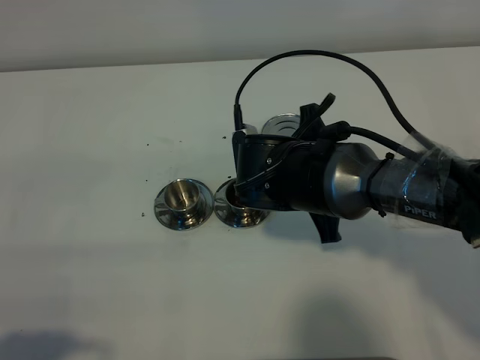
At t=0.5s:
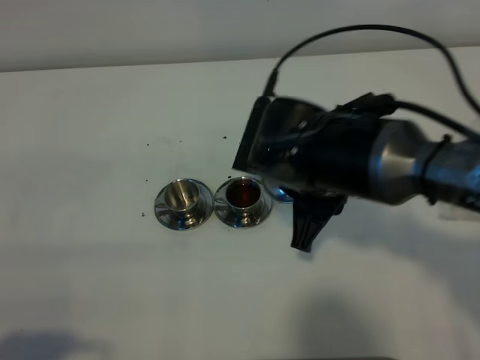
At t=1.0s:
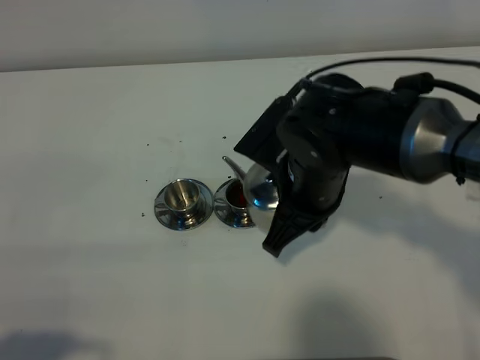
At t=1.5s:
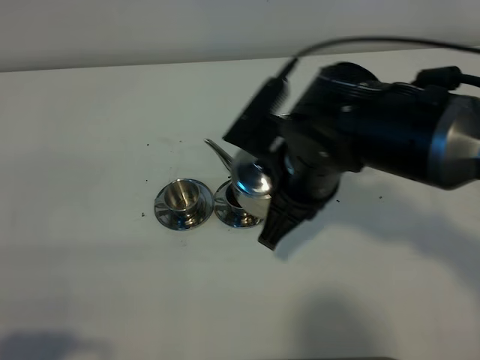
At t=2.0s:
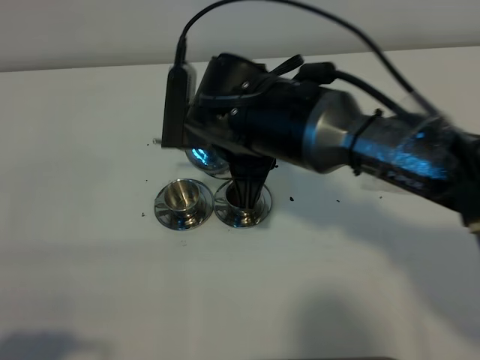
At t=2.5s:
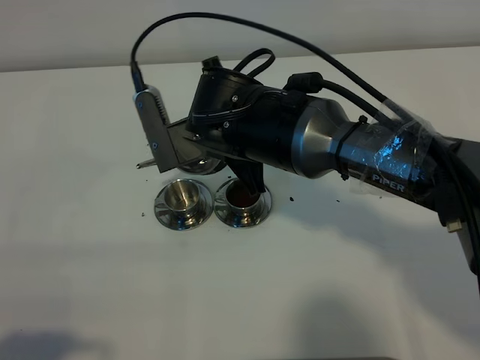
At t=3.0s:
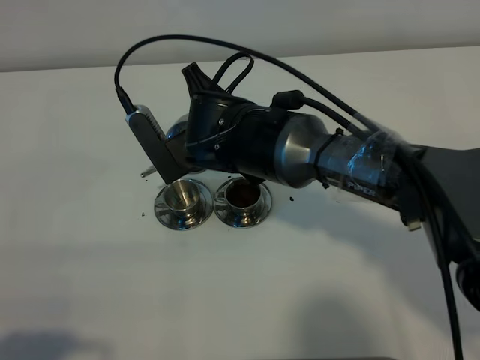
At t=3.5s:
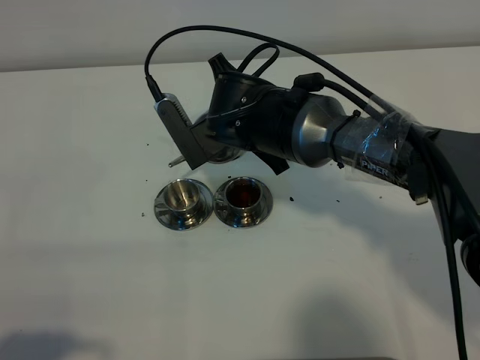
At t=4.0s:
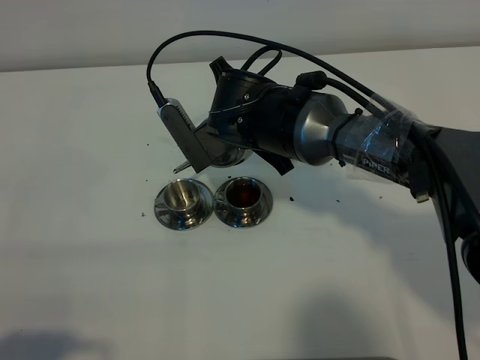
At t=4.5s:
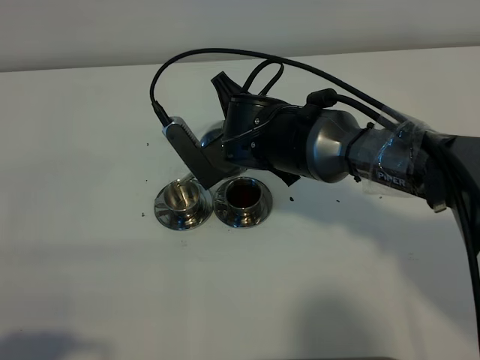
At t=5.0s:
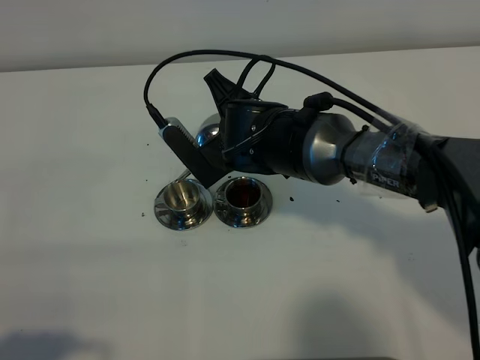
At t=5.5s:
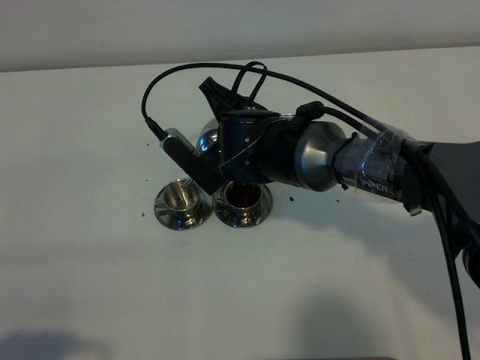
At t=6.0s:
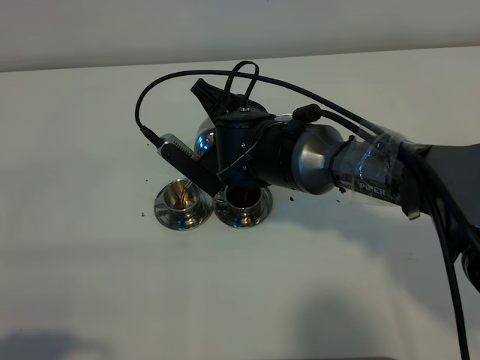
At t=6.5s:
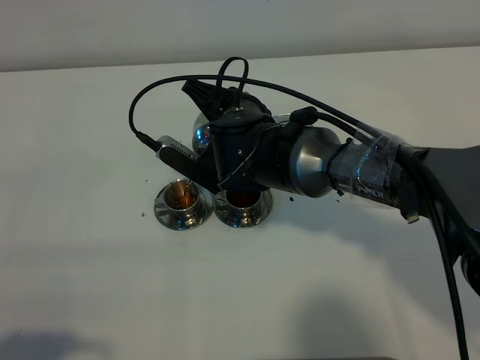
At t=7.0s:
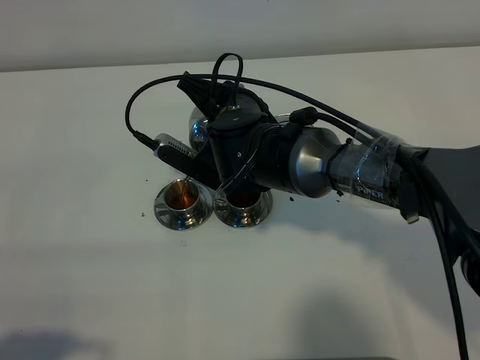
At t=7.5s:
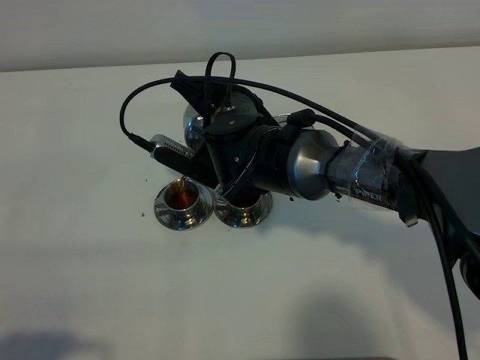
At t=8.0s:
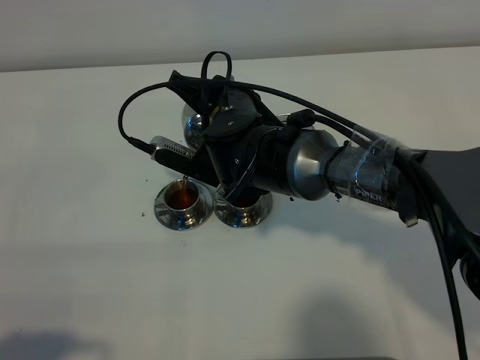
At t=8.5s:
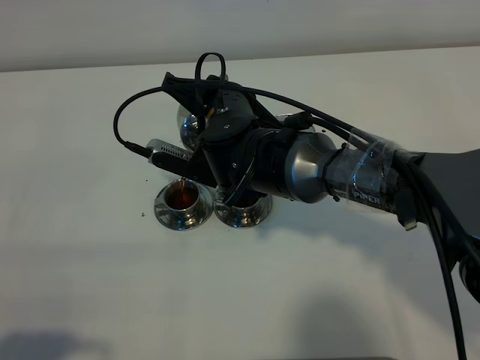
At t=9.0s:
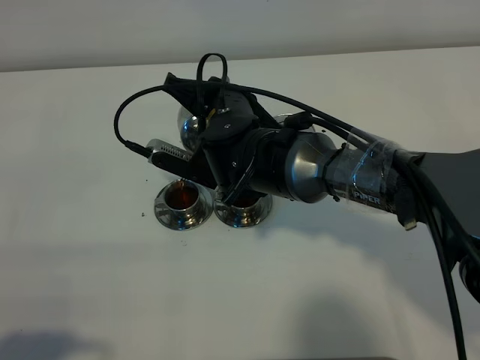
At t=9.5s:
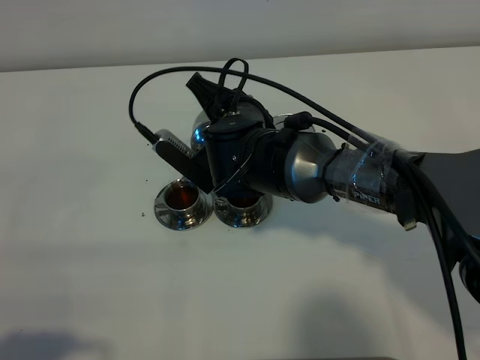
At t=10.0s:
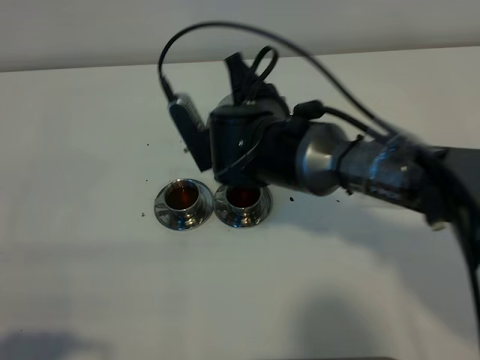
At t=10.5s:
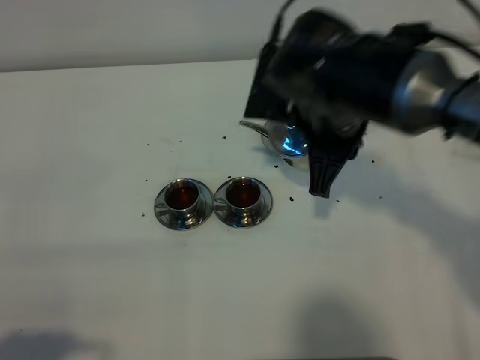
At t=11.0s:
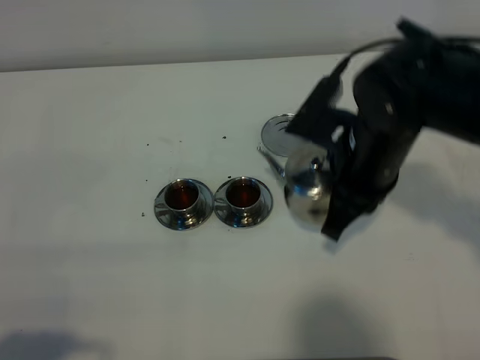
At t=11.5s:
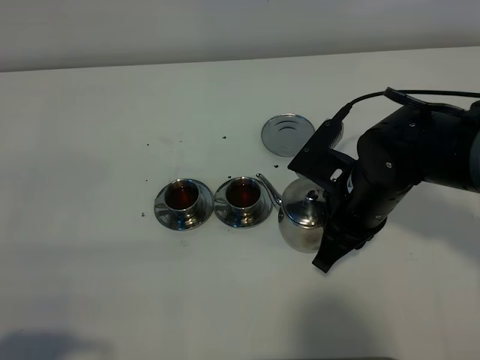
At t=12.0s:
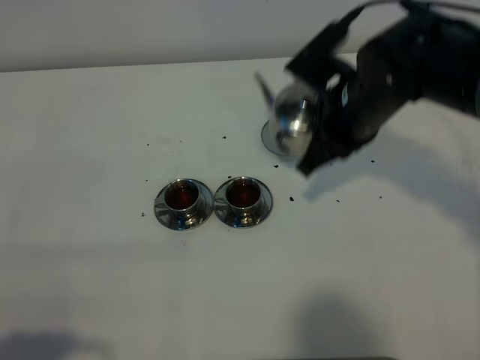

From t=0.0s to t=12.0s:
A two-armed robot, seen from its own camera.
Task of the whole recording: grasp the stainless steel teapot and pour the tea into the two stainless steel teacups one by one, put the stainless steel teapot back in its original place.
Step, from t=1.0s to t=9.5s: Pour tea into the teacup with the right gripper.
From t=0.0s to t=2.0s: The right gripper is displaced to the left and upward by some 10 cm.
From t=2.0s to t=4.0s: The right gripper shifts by some 5 cm.
From t=6.0s to t=8.0s: The grippers make only small movements.
From t=10.0s to t=12.0s: The right gripper heads to the right, covering about 10 cm.

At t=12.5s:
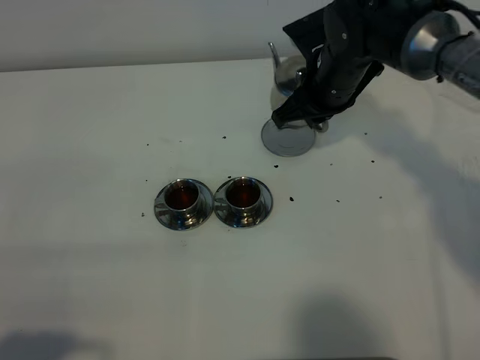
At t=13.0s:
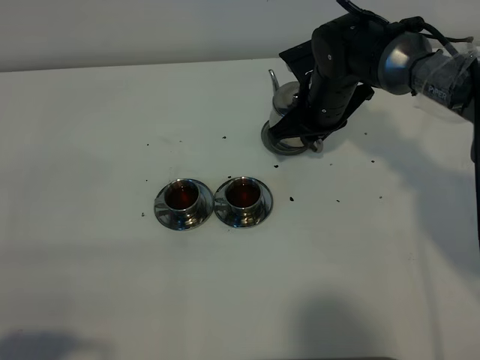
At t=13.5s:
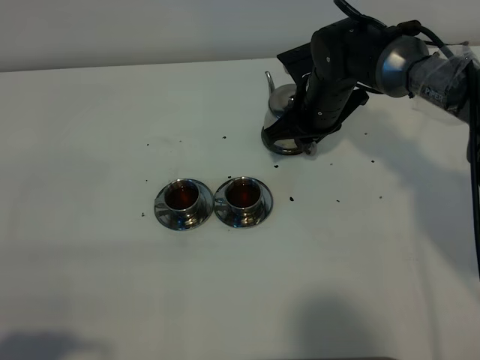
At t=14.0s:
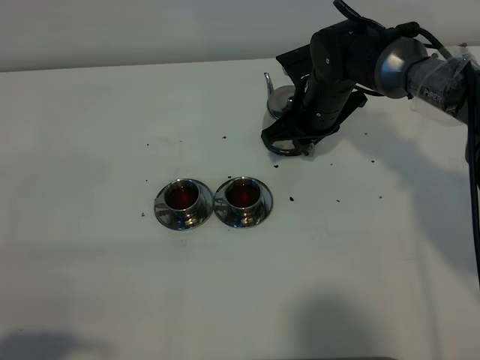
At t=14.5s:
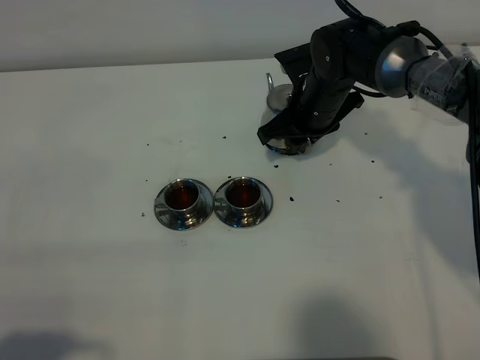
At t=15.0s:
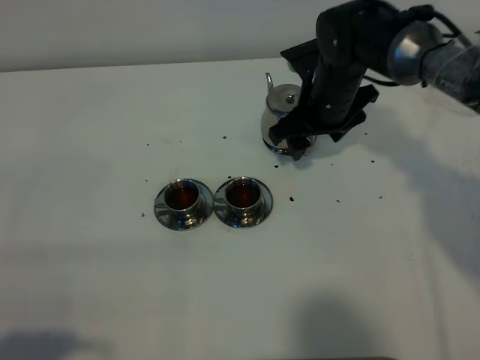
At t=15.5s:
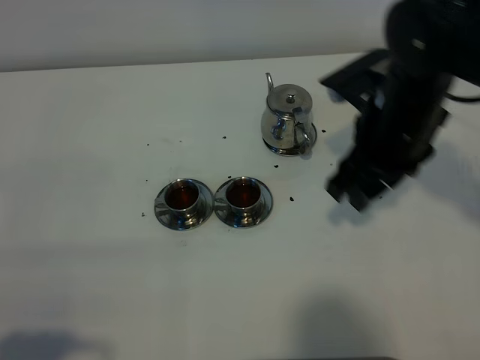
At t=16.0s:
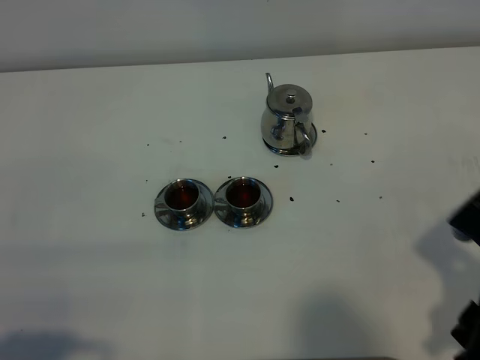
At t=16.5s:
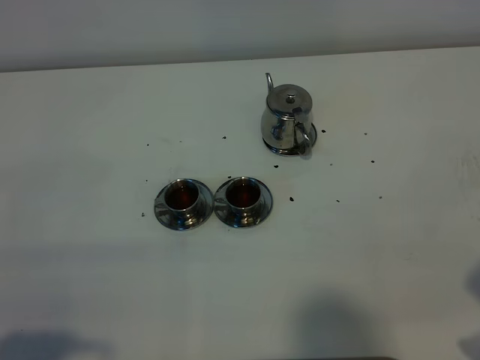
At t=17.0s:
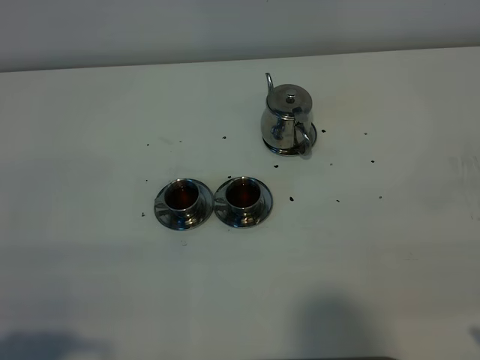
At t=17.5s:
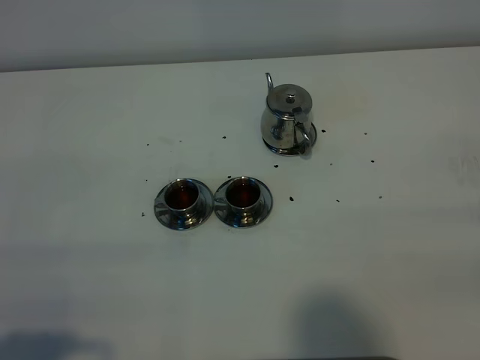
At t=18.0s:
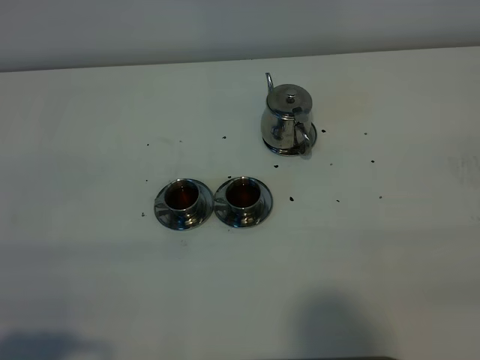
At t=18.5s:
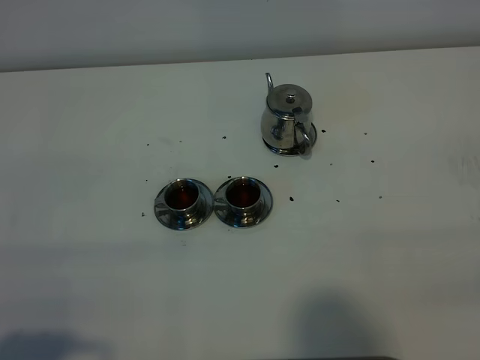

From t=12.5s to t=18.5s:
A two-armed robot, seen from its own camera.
Task of the whole recording: grasp the stainless steel teapot and pour the tea into the two stainless steel teacups one by one, put the stainless steel teapot back in its original place.
From t=12.5s to t=14.5s: The right gripper opens.
From t=14.5s to t=16.5s: The right gripper shifts about 40 cm backward and to the right, and opens up.

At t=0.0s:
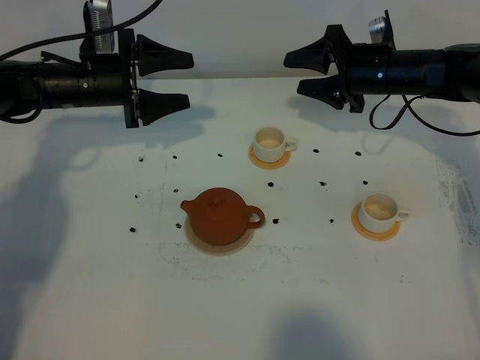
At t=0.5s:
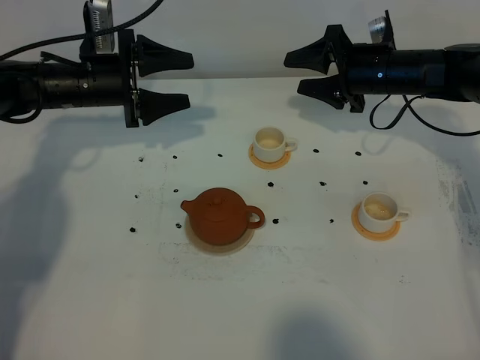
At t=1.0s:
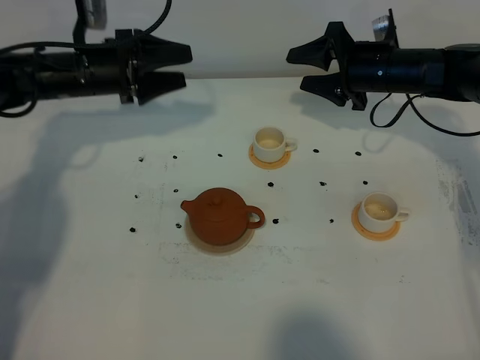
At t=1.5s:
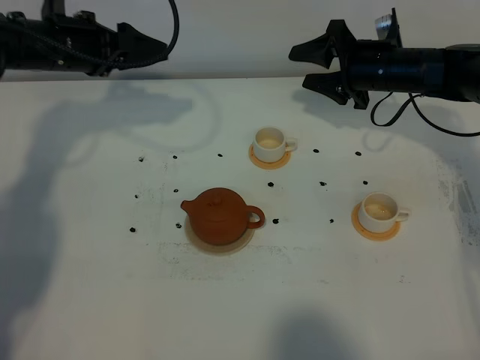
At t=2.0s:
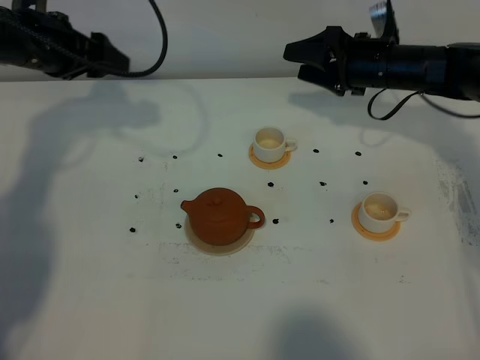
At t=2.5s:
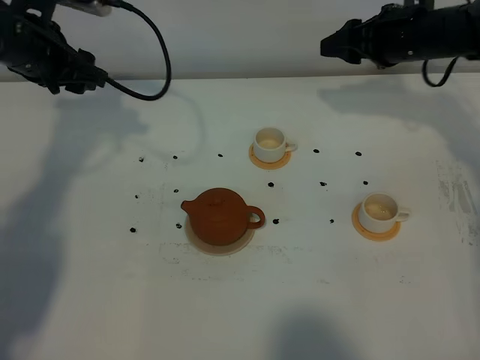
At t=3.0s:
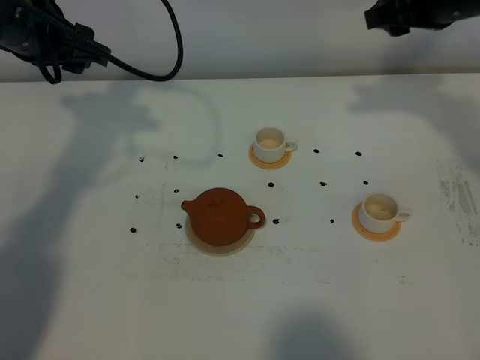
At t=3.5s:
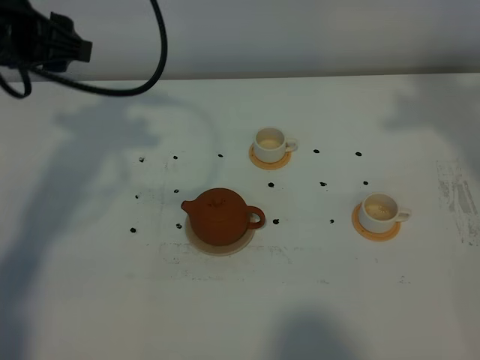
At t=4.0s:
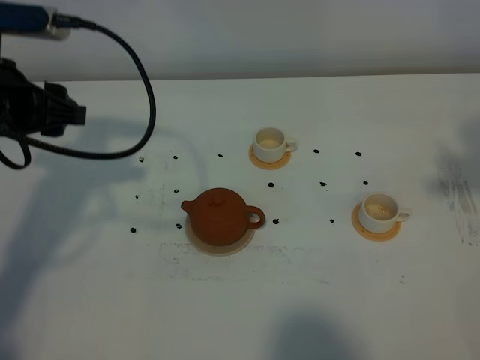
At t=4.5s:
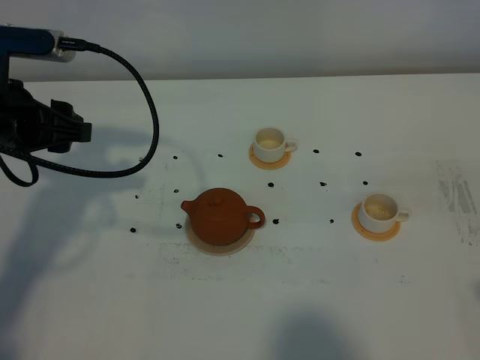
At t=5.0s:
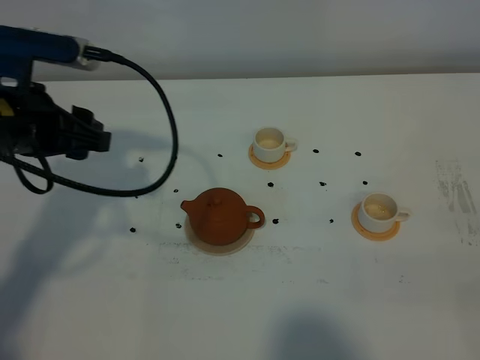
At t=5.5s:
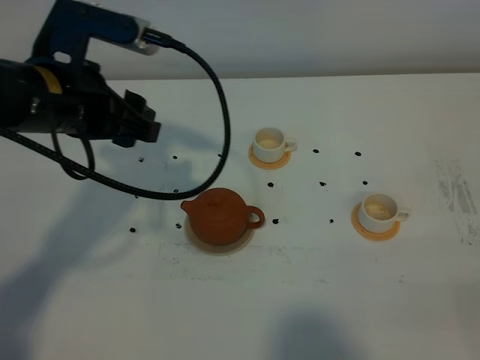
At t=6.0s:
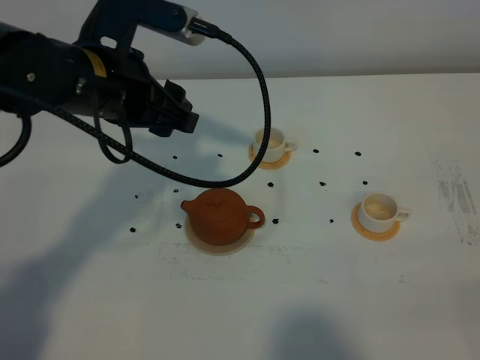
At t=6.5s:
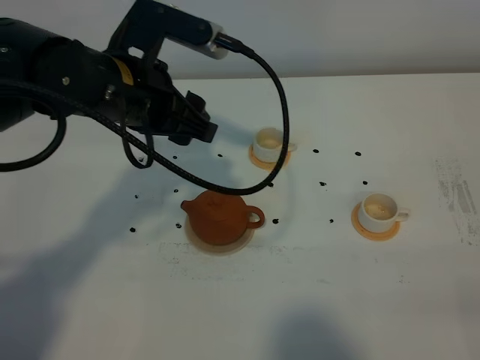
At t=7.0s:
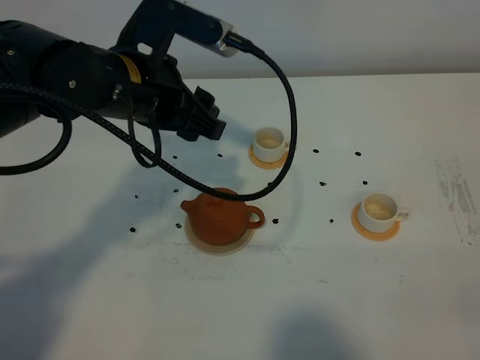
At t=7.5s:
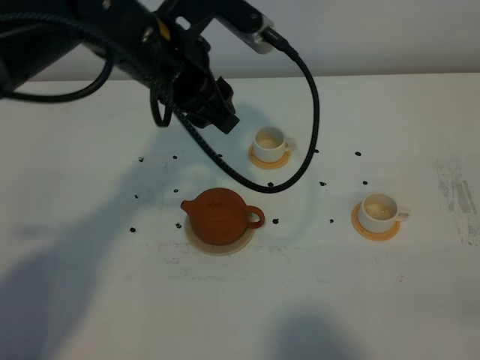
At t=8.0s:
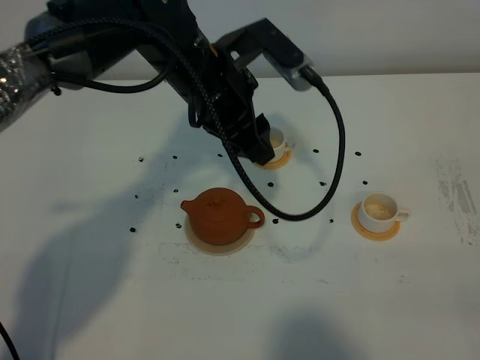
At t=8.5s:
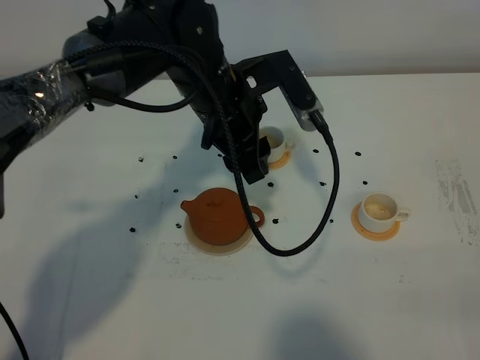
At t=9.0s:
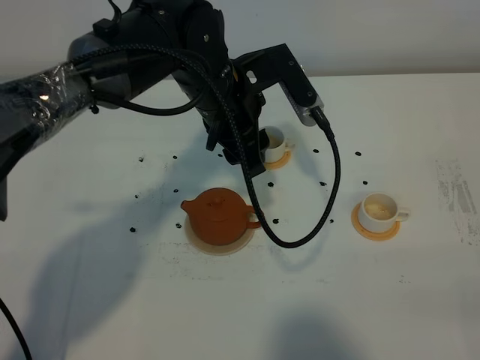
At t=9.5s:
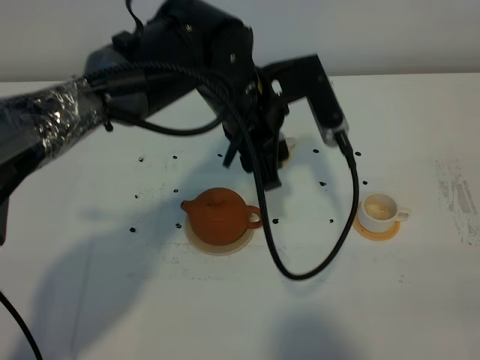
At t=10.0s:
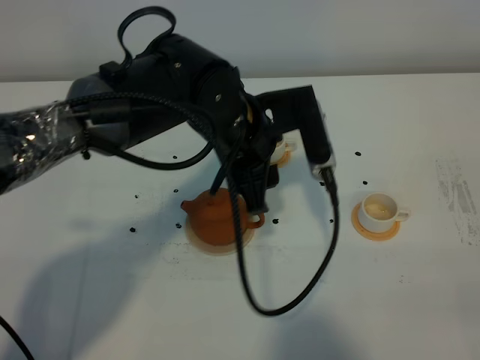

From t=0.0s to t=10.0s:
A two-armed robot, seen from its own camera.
Task of the whole recording: grasp the brown teapot and pour the tea into the two white teacups one by one, put the brown teapot back in its original place.
From t=0.0s to t=2.0s: The left gripper is displaced upward and to the left by approximately 10 cm.
From t=2.0s to t=4.0s: The left gripper is displaced backward by some 15 cm. The right gripper is displaced backward and upward by some 40 cm.
From t=4.0s to t=6.0s: The right gripper shifts about 25 cm backward and downward; the left gripper travels to the right by some 10 cm.
From t=6.0s to t=8.0s: The left gripper moves to the right and forward, some 10 cm.
From t=8.0s to t=10.0s: The left gripper shifts by roughly 5 cm.
